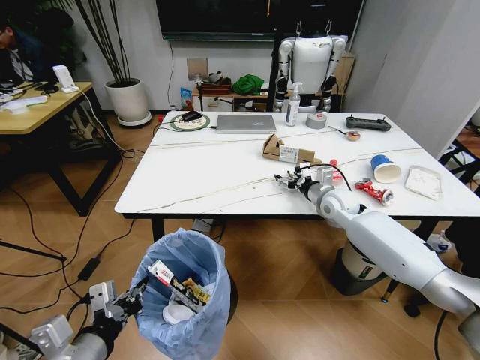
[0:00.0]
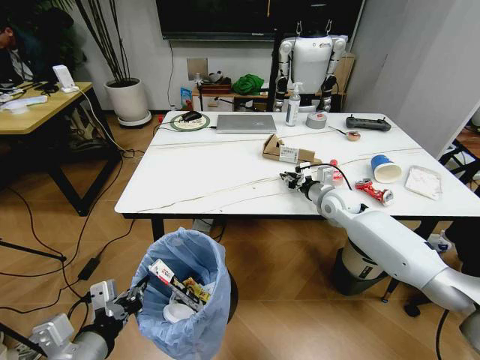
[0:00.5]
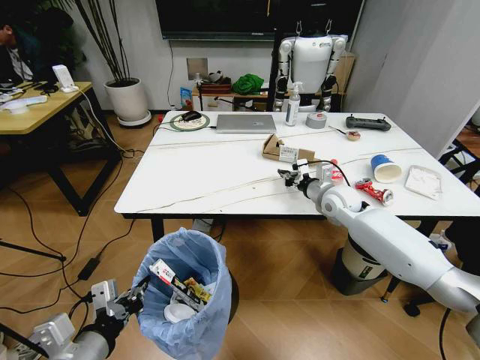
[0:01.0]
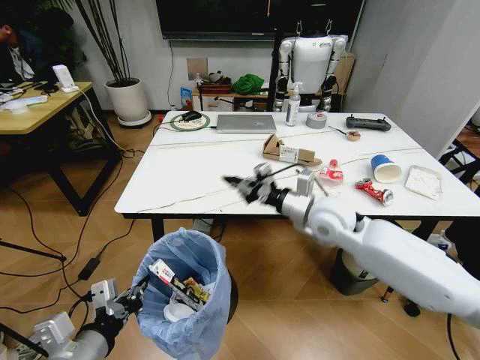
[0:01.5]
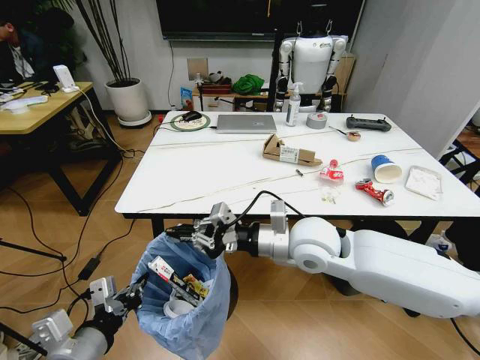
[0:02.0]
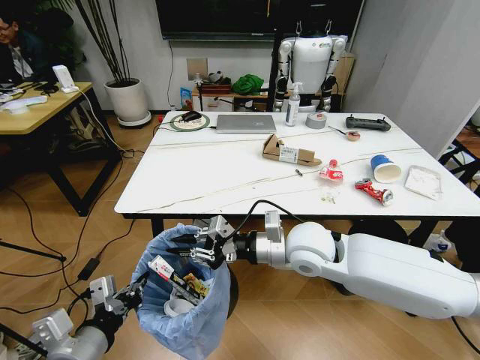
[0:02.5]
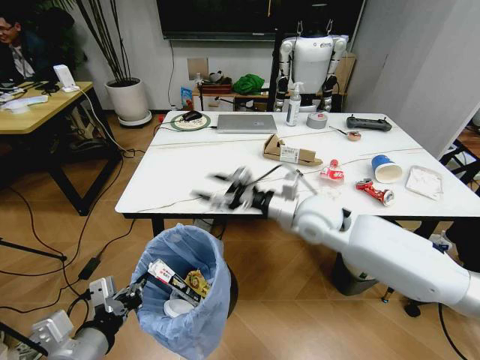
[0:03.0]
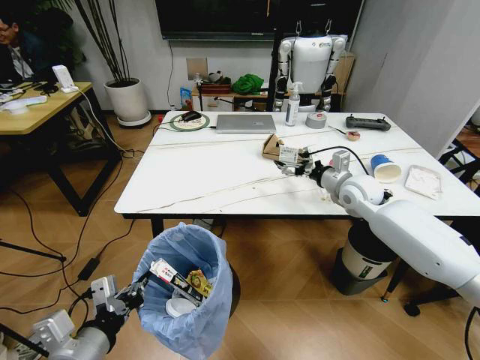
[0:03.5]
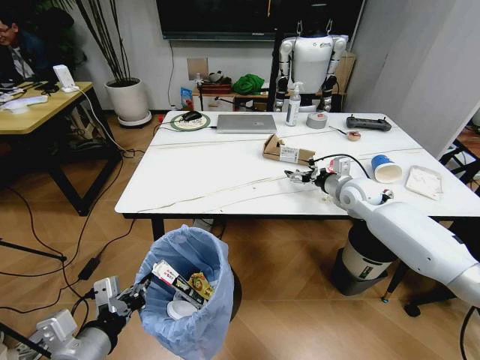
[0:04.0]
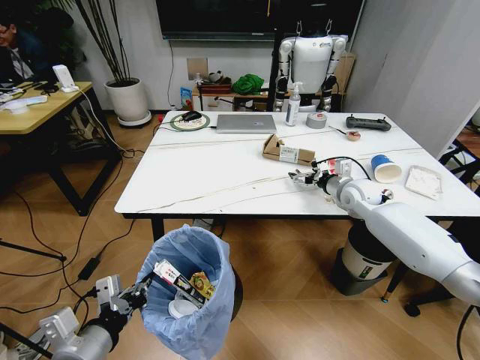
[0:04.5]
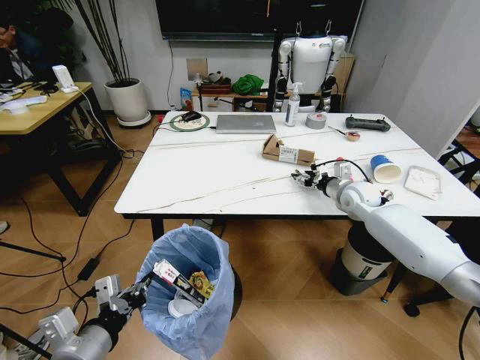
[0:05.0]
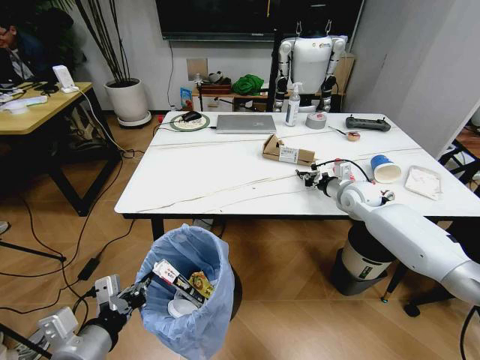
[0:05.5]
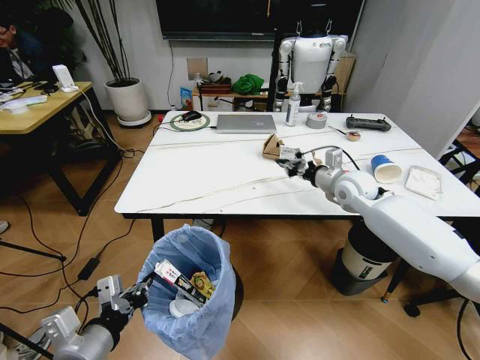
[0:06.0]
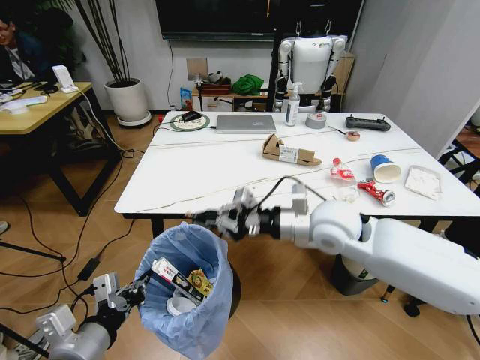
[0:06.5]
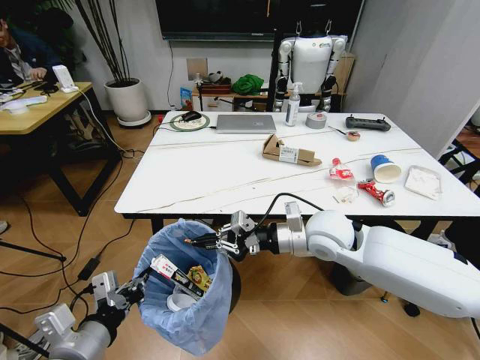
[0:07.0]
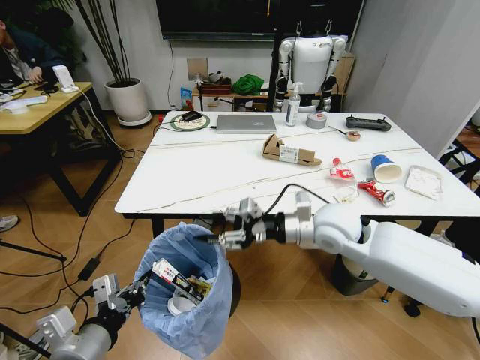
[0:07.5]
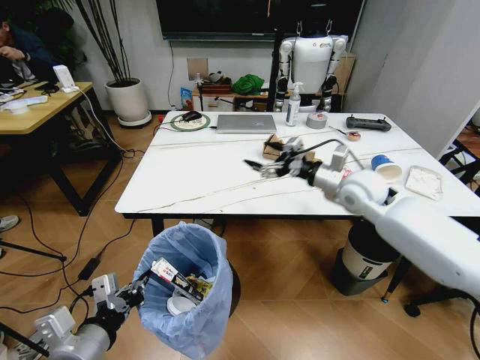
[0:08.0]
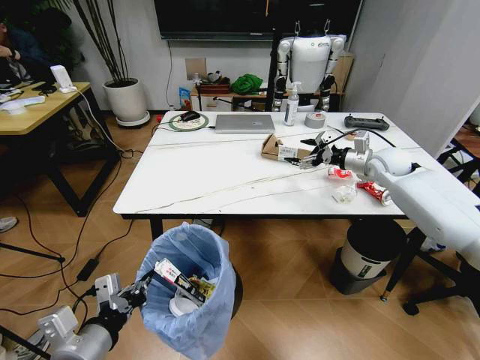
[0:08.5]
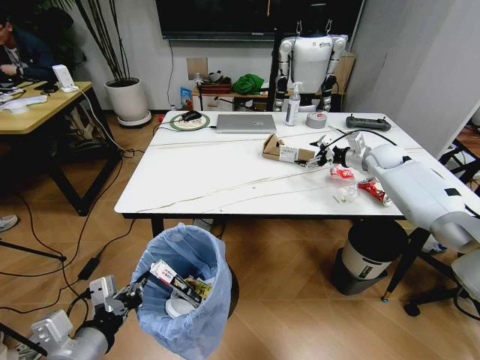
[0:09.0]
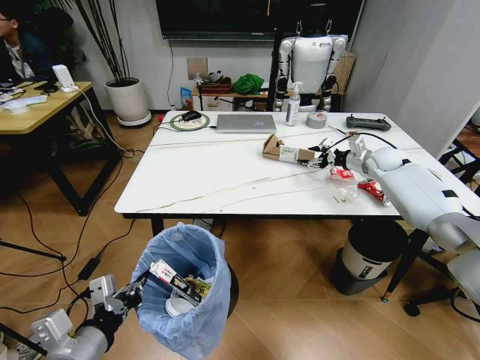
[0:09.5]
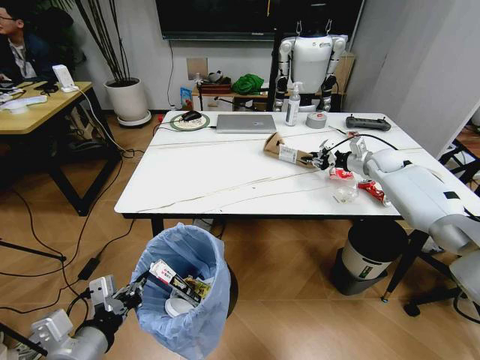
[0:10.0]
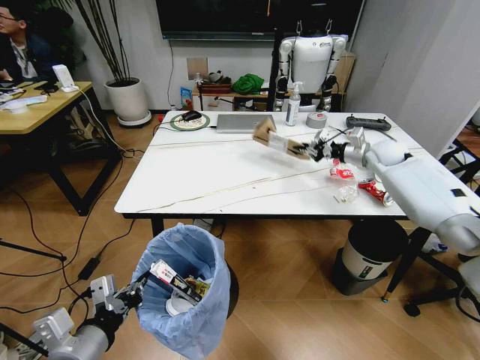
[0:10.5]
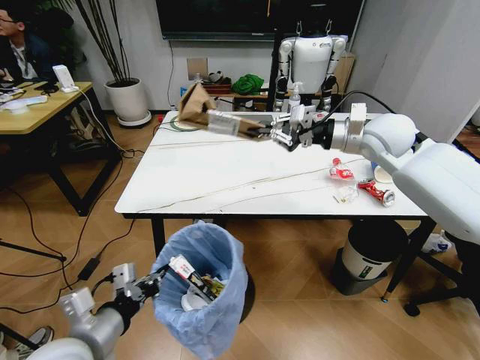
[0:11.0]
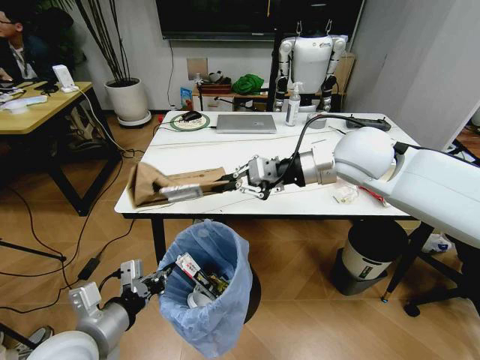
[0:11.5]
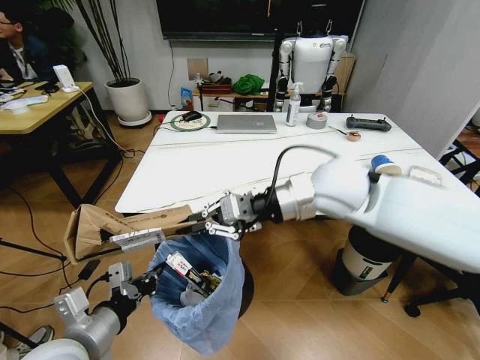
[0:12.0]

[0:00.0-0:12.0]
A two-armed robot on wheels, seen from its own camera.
Task of the whole recording: Pick up the trash bin and place the trash from the table into it.
0:00.0 to 0:02.0: The right gripper shifts some 25 cm backward, to the left and upward, and closes.
0:02.0 to 0:04.0: The right gripper moves to the right and forward, some 25 cm, and opens up.
0:04.0 to 0:06.0: The right gripper moves approximately 5 cm, and closes its fingers.
0:06.0 to 0:08.0: The right gripper travels backward and back again, some 15 cm each way, and opens its fingers.
0:08.0 to 0:10.0: The right gripper is displaced forward and to the right by approximately 20 cm, and closes up.
0:10.0 to 0:12.0: The right gripper is displaced to the left, backward and upward by roughly 40 cm.

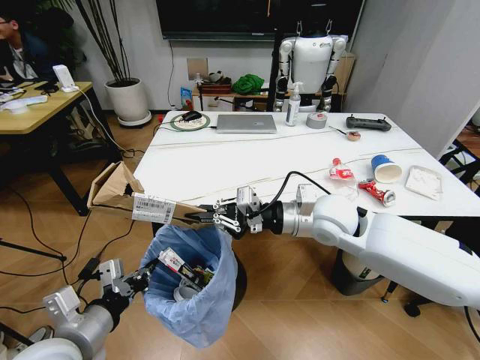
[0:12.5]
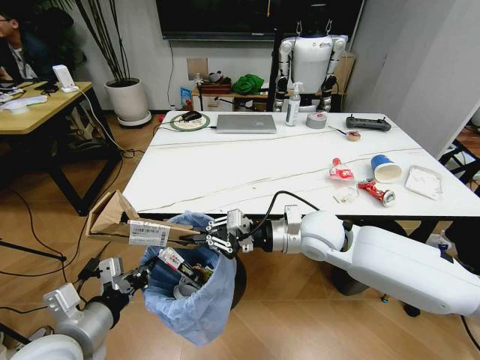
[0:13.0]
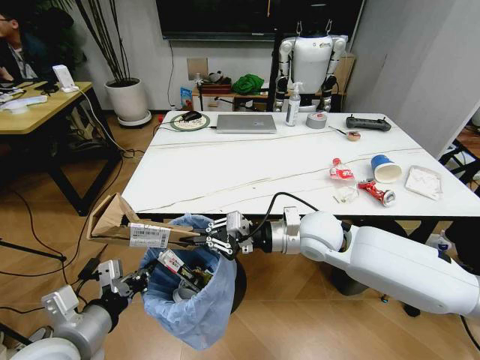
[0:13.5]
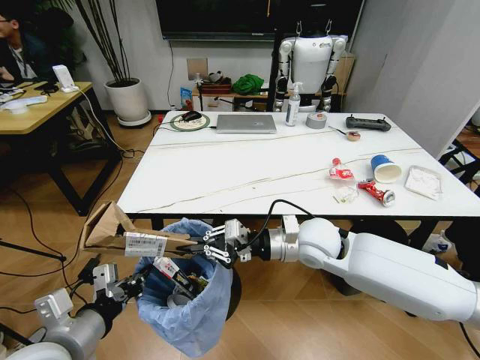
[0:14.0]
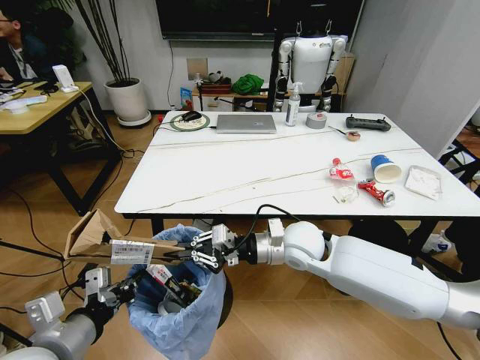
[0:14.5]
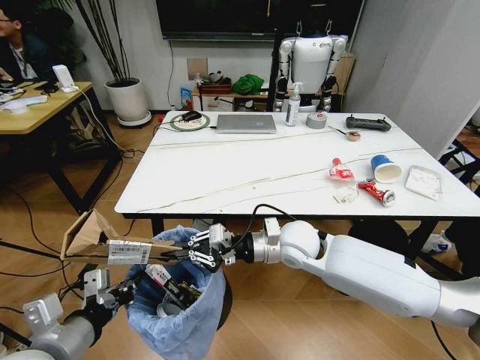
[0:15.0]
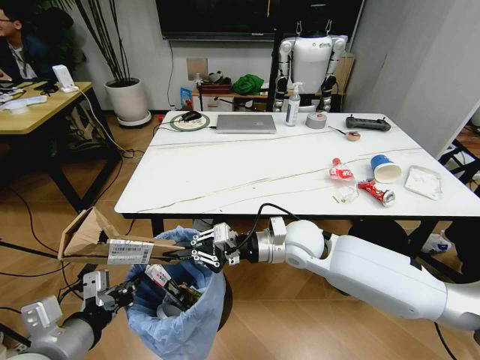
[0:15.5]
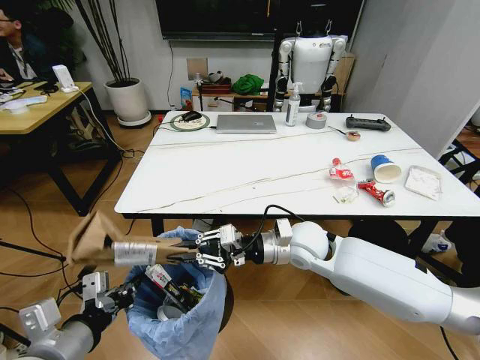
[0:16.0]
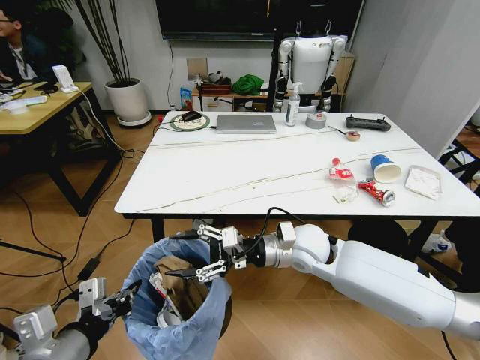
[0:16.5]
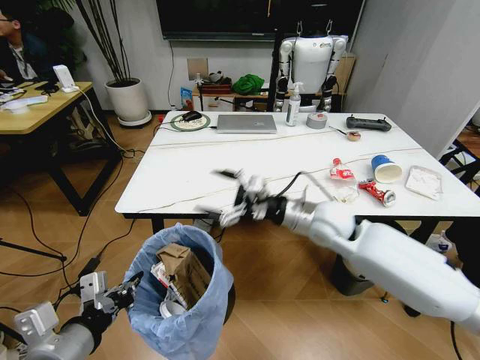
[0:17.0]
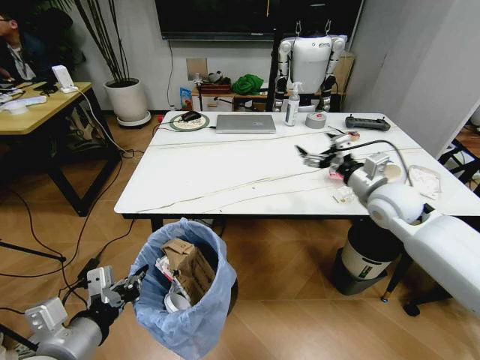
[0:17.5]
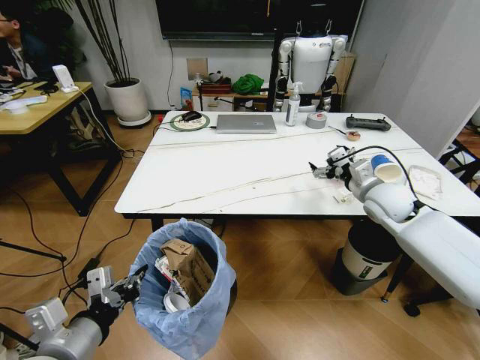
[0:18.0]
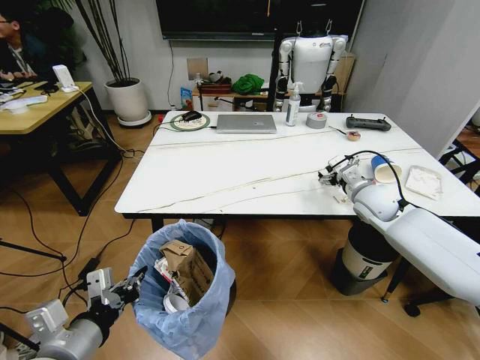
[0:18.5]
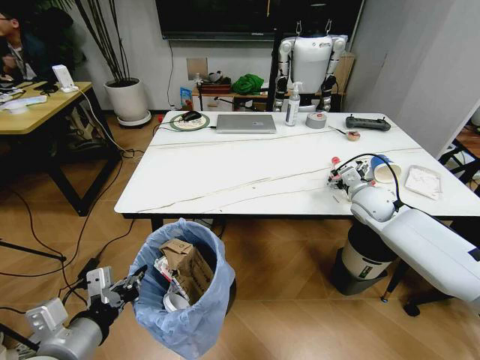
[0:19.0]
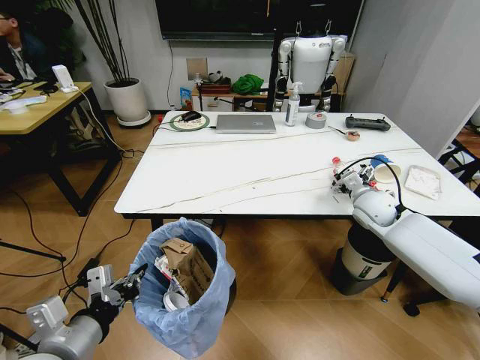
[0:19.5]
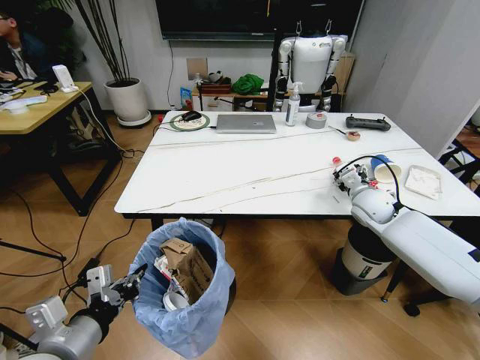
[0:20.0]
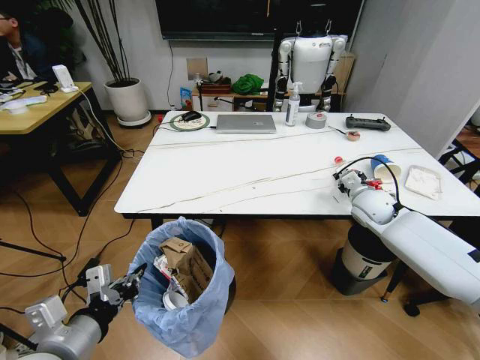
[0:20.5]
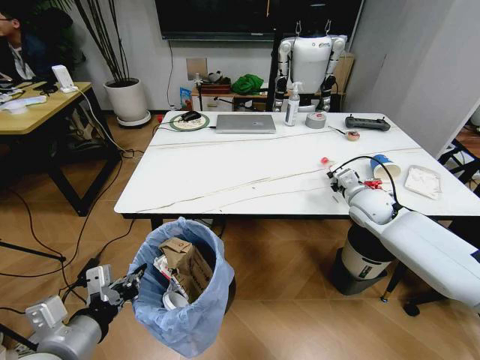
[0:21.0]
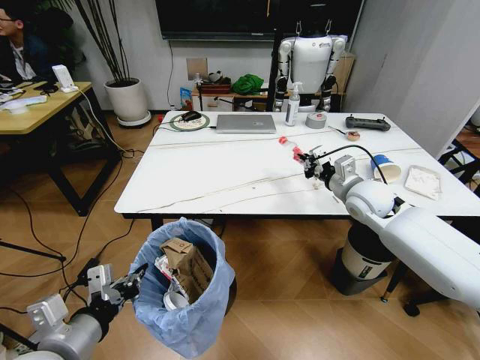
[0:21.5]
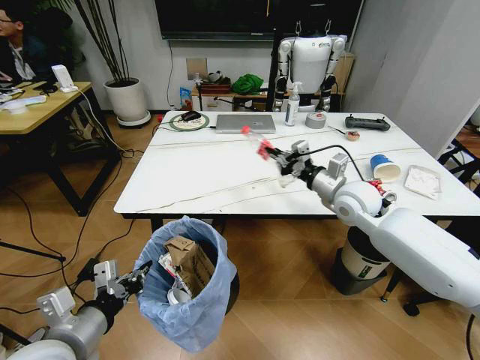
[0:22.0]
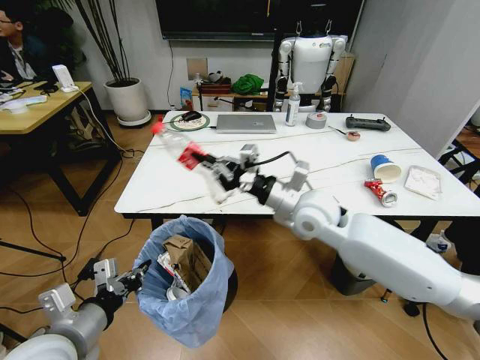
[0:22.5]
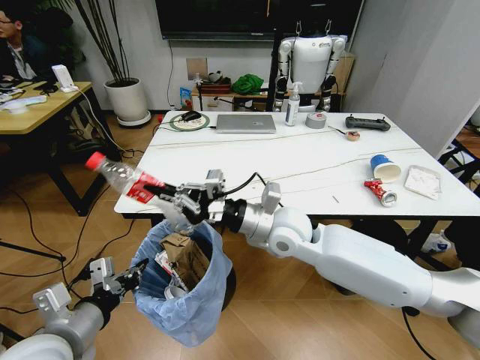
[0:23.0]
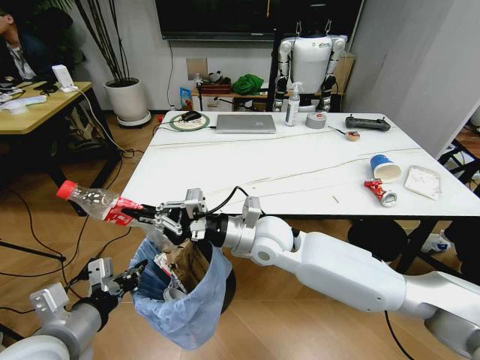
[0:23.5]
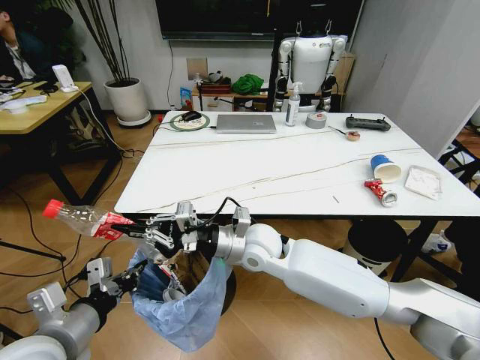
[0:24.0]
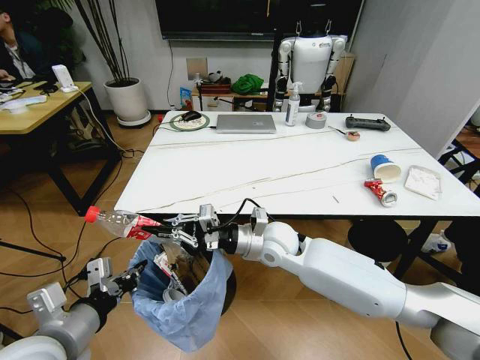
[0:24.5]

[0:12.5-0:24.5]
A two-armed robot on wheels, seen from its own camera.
Task of the whole recording: Pick up the trash bin and place the trash from the table into it.
0:12.5 to 0:14.5: The right gripper is displaced downward by about 5 cm.
0:14.5 to 0:16.5: The right gripper opens.
0:16.5 to 0:18.5: The right gripper travels to the right and forward by roughly 25 cm, and opens its fingers.
0:18.5 to 0:20.5: The right gripper closes.
0:20.5 to 0:22.5: The right gripper is displaced to the left, backward and upward by about 25 cm.
0:22.5 to 0:24.5: The right gripper is displaced downward and to the left by some 10 cm.

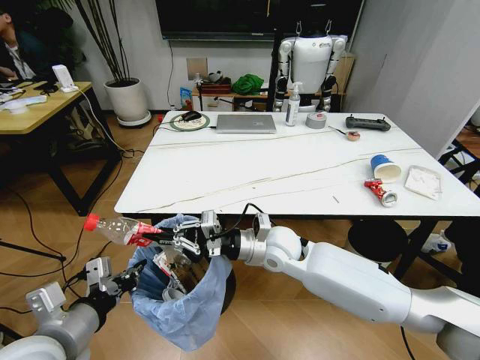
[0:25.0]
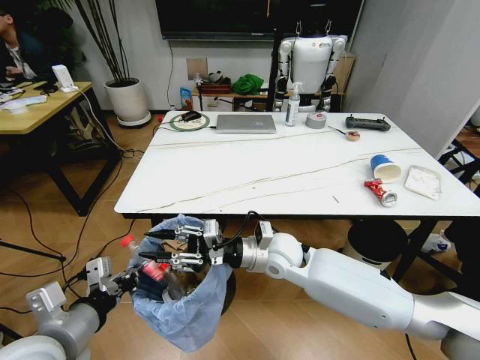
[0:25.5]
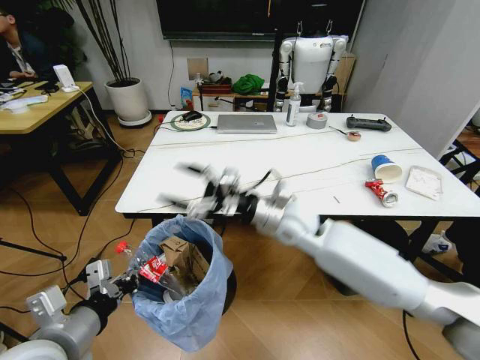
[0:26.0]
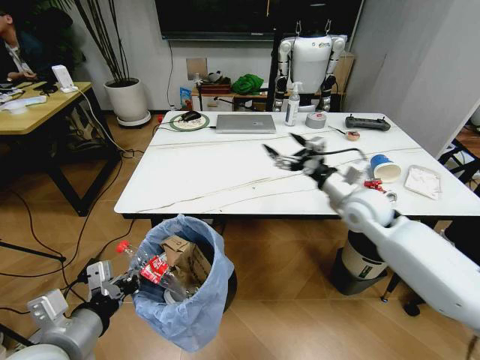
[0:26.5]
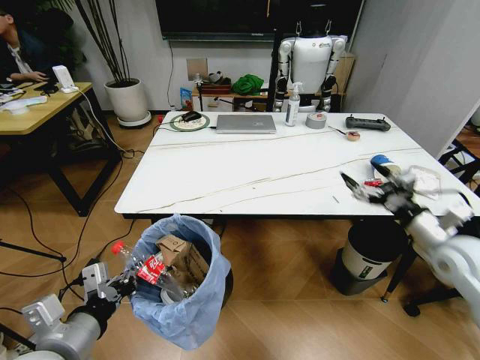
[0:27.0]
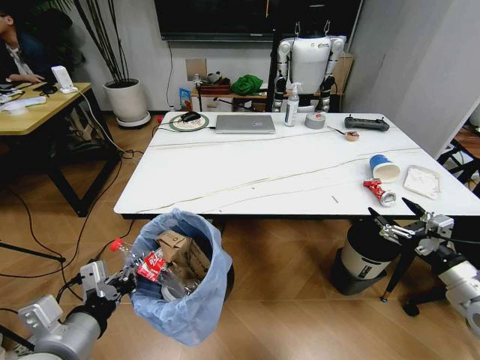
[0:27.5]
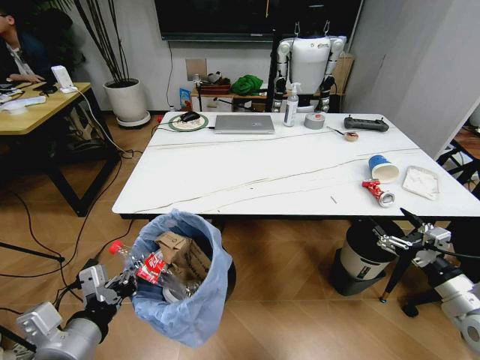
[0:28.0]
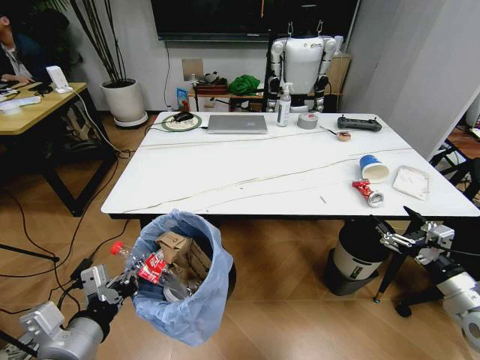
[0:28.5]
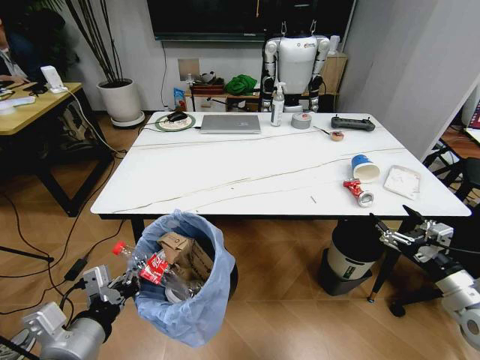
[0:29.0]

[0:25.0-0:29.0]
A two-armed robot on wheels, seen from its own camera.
Task of the whole recording: Pick up the trash bin and place the trash from the table into it.
0:25.0 to 0:27.0: The right gripper is displaced to the right by about 35 cm, and opens.
0:27.0 to 0:29.0: The right gripper goes about 15 cm backward and downward.
